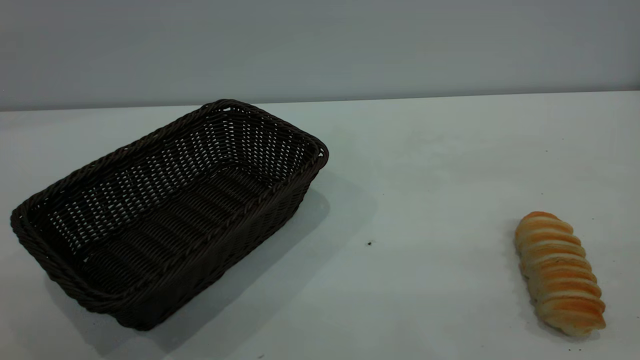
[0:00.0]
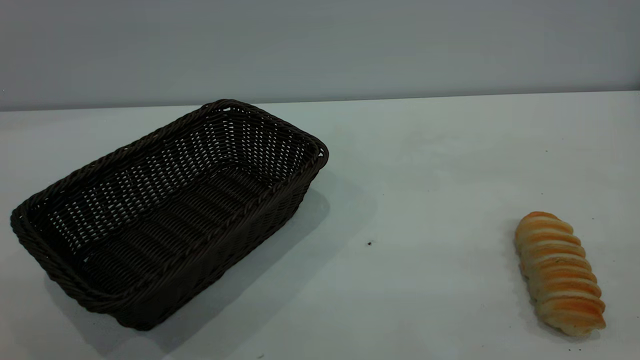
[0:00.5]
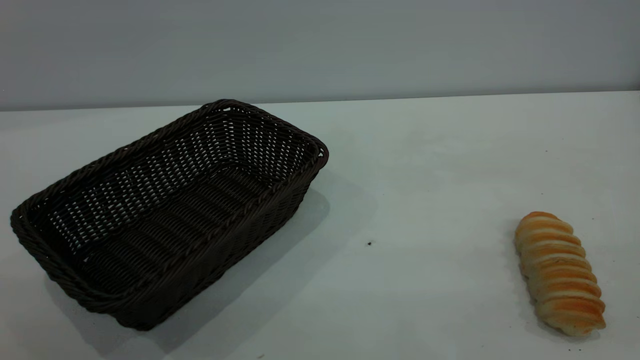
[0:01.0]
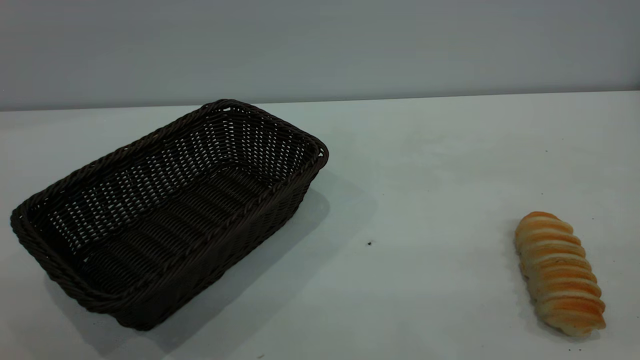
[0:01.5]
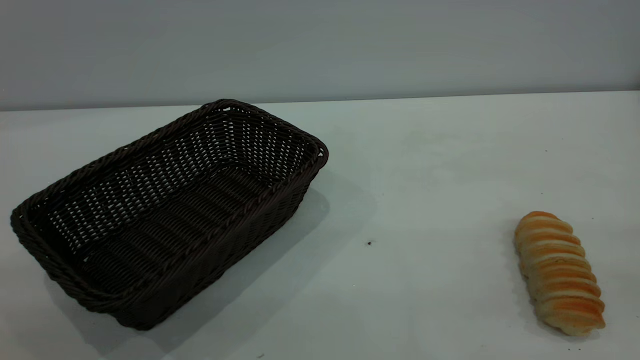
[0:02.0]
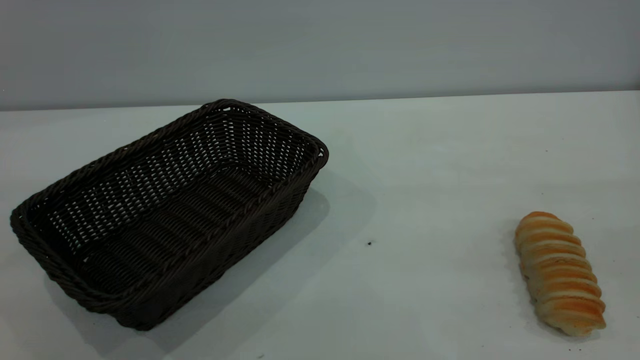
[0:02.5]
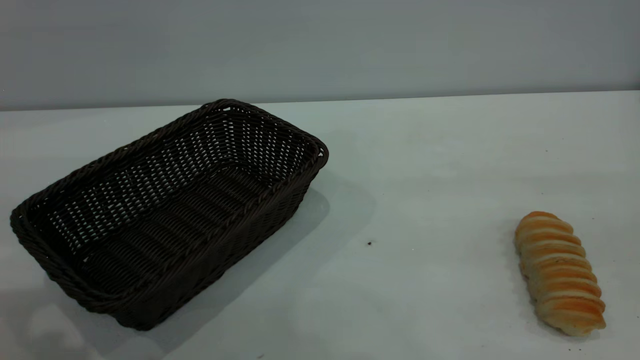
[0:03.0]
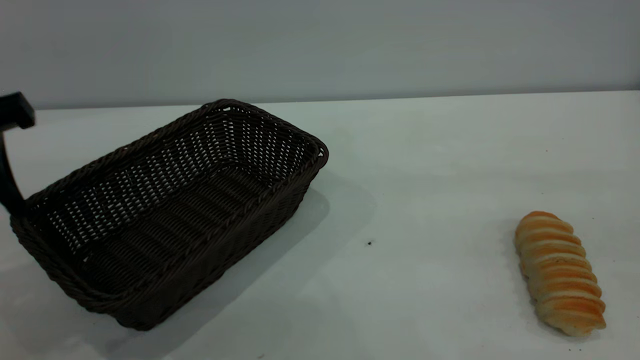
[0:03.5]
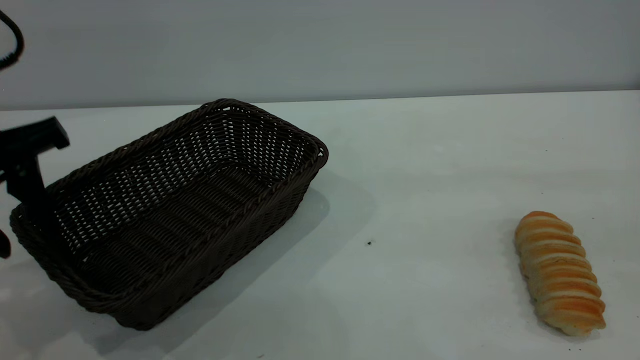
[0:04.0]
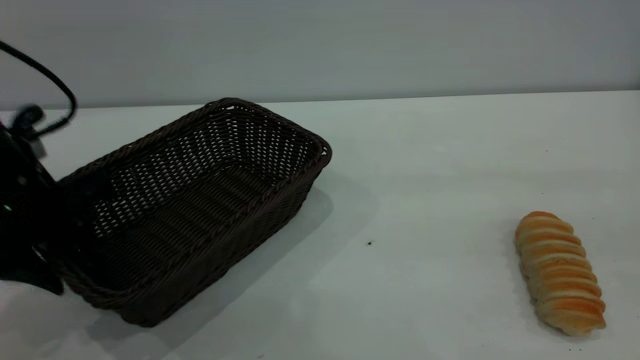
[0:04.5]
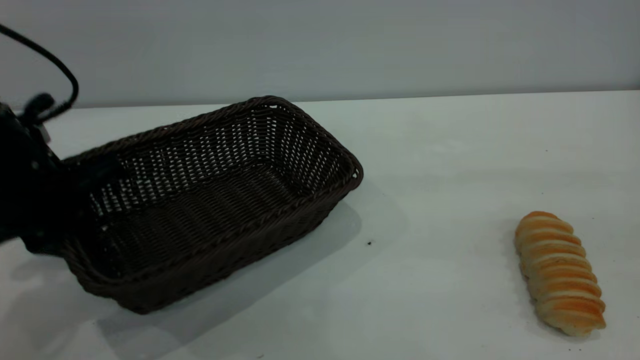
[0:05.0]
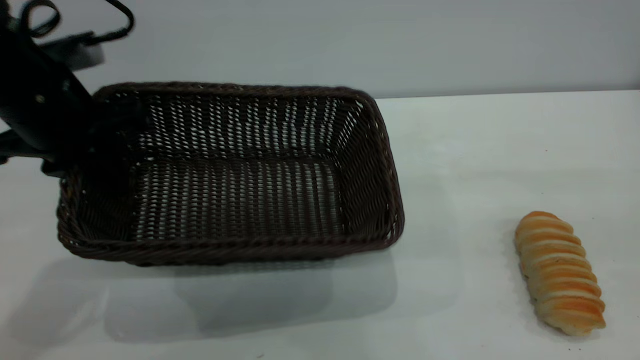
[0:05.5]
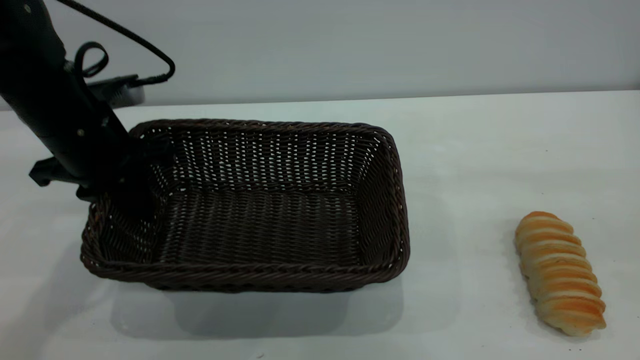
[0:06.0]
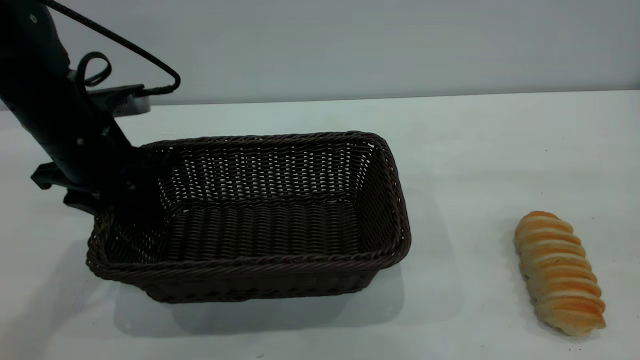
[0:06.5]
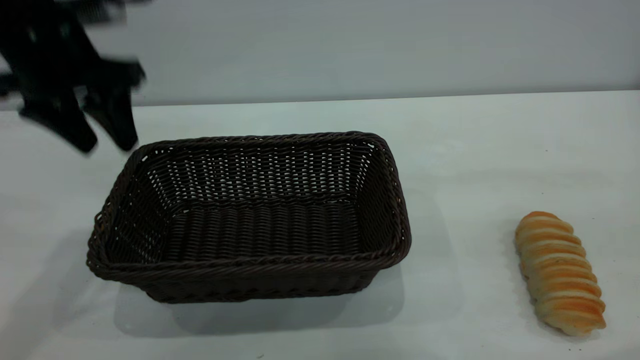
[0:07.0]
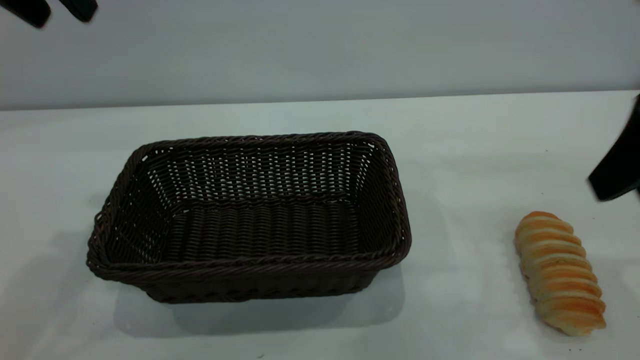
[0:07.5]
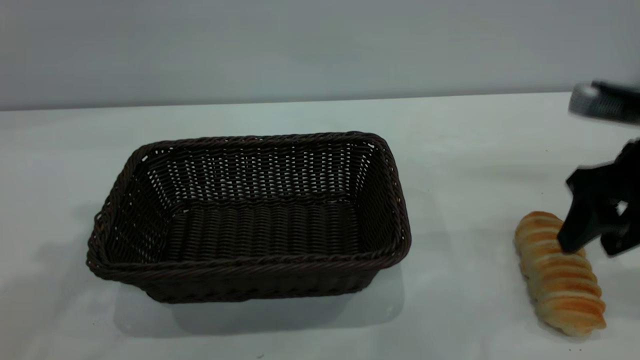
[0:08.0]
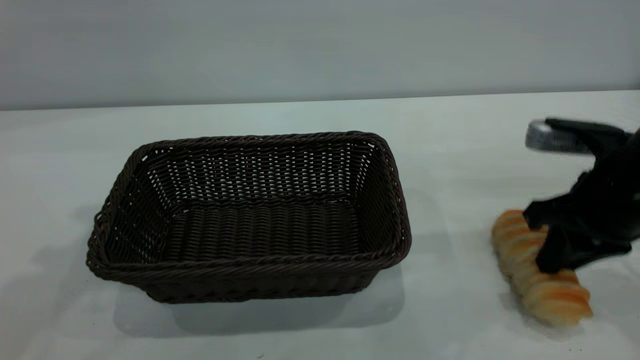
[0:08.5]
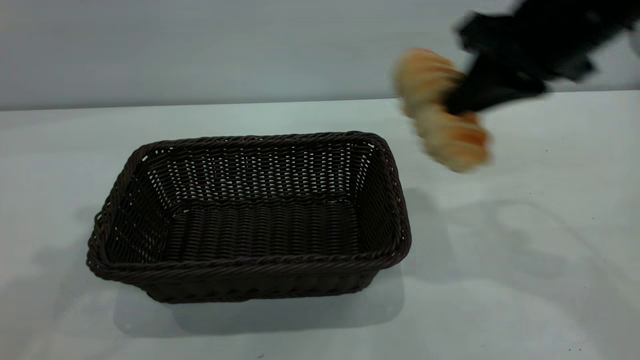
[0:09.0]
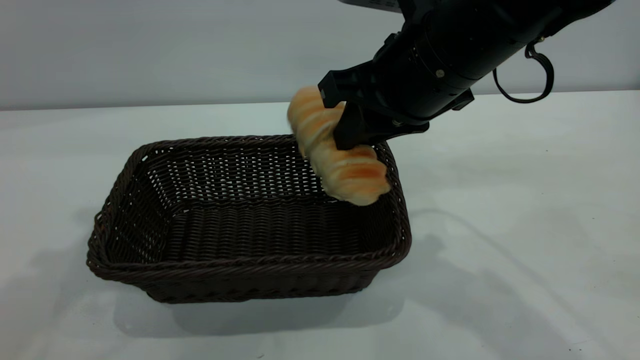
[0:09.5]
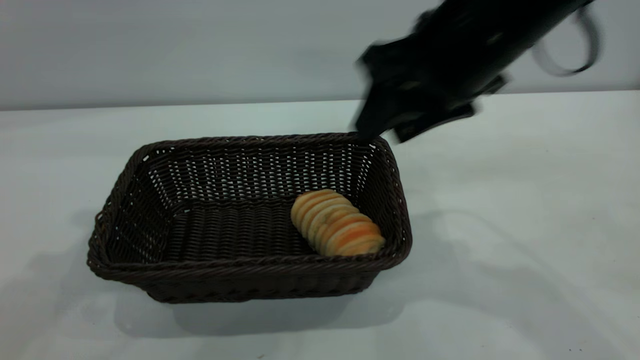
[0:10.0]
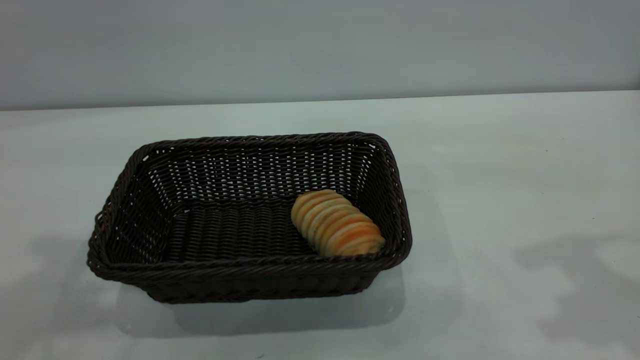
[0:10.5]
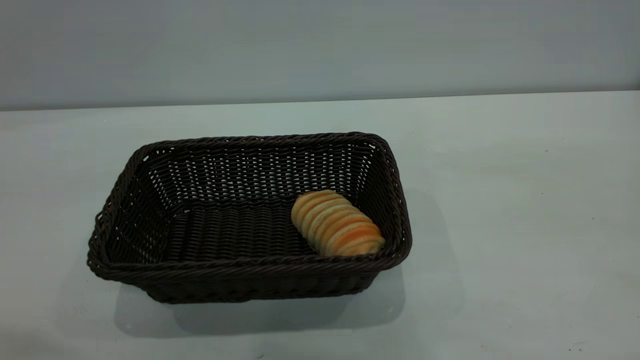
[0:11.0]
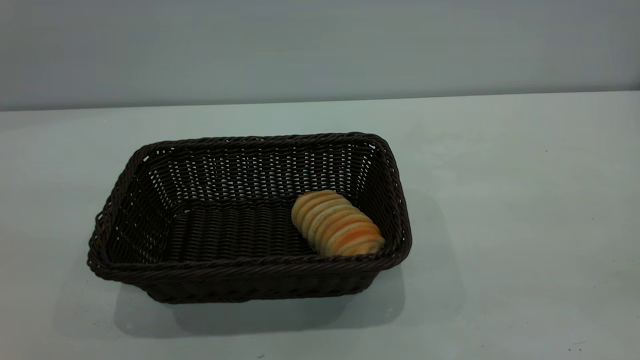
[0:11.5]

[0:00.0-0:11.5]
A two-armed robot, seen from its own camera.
Task of the whole recording: One hand grasps the black basket and places it in the middle of the table, while the other hand picks up the long bread and puts it into the black basket.
Step, 0:00.0 to 0:06.5: Move the basket to the center of view.
Step, 0:09.0 to 0:10.0: place the bread into the basket.
0:02.0 to 0:04.0: The left gripper is displaced forward and downward by approximately 30 cm.
0:04.0 to 0:06.0: The left gripper moves forward and downward, approximately 10 cm, and closes its fingers.
0:06.0 to 0:07.5: The right gripper is displaced forward and downward by approximately 15 cm. The left gripper is displaced upward by some 20 cm, and opens its fingers.
0:07.5 to 0:09.5: The right gripper is displaced to the left by roughly 20 cm, and closes up.
0:09.5 to 0:11.5: The right gripper is displaced backward, to the right and upward by some 35 cm, and opens, while the left gripper travels backward by some 25 cm.
